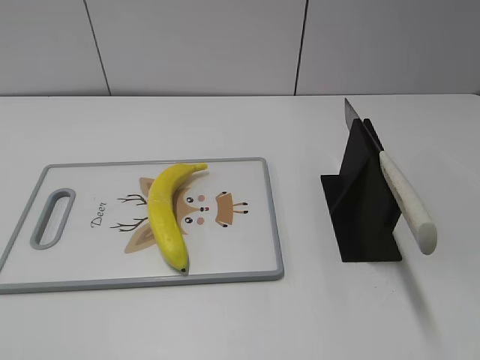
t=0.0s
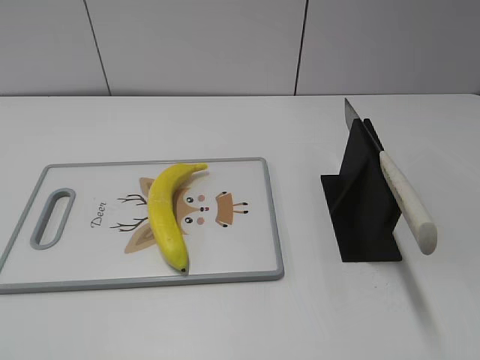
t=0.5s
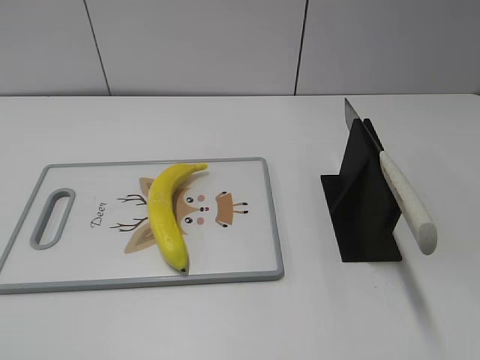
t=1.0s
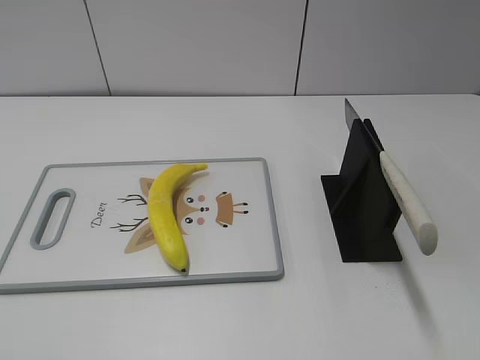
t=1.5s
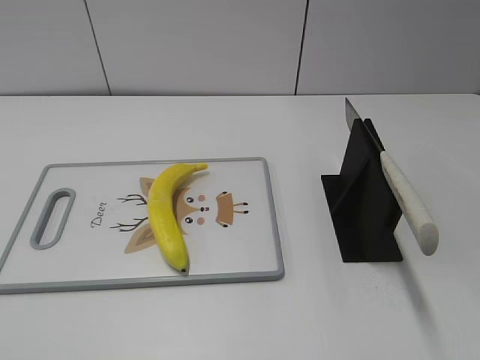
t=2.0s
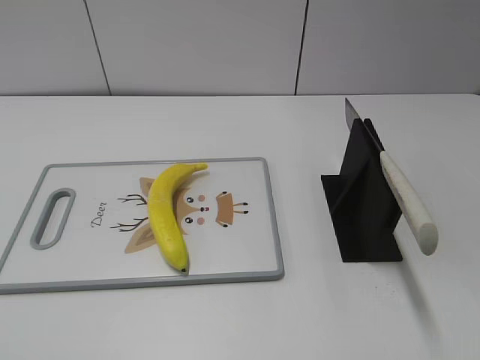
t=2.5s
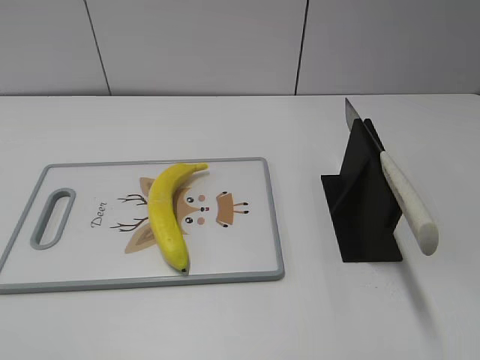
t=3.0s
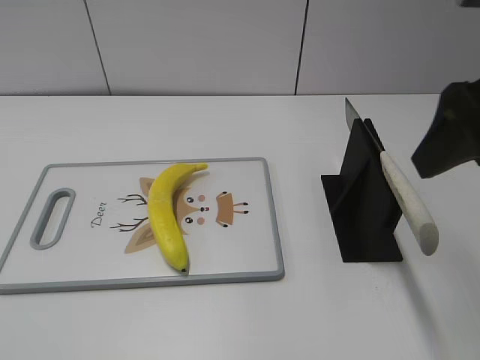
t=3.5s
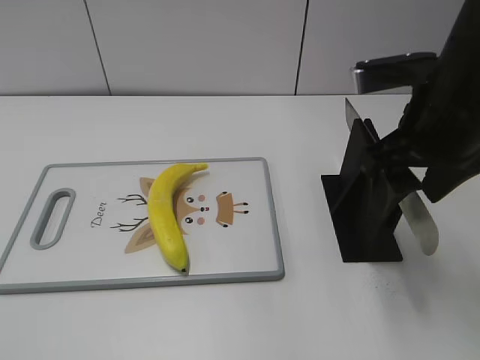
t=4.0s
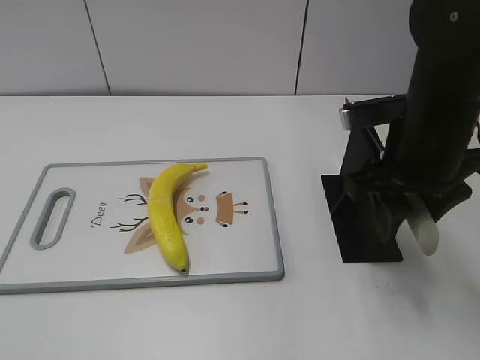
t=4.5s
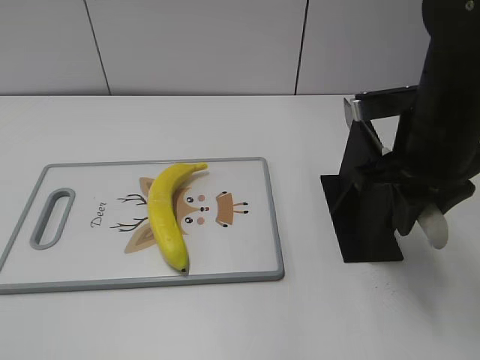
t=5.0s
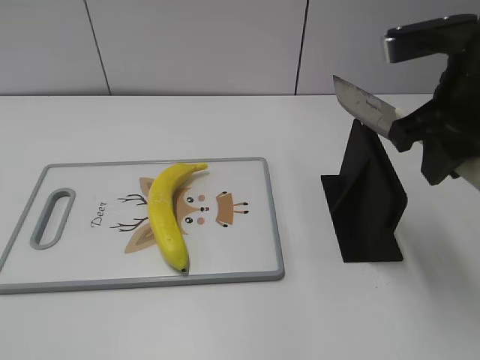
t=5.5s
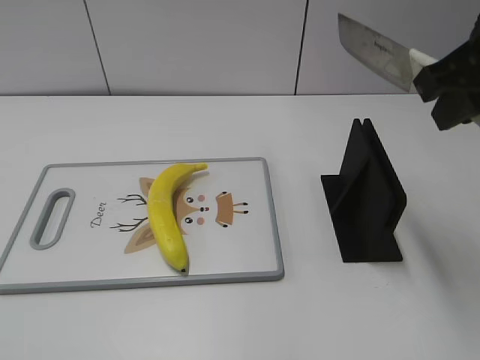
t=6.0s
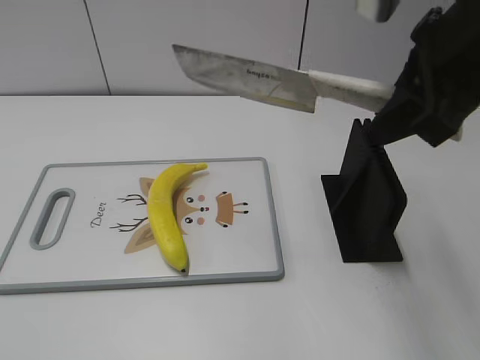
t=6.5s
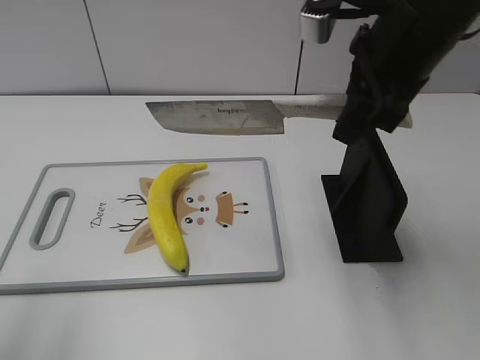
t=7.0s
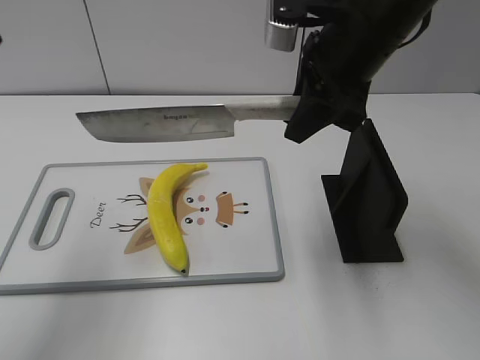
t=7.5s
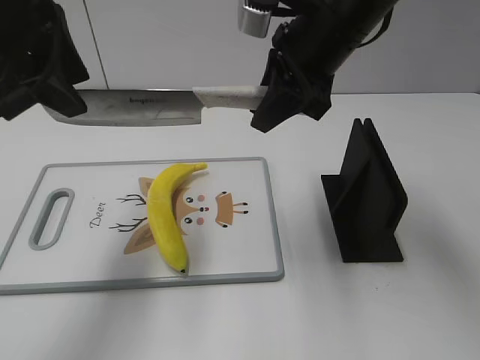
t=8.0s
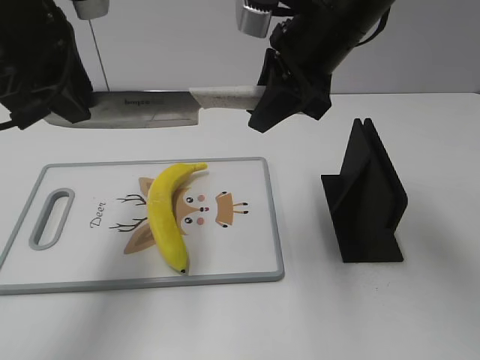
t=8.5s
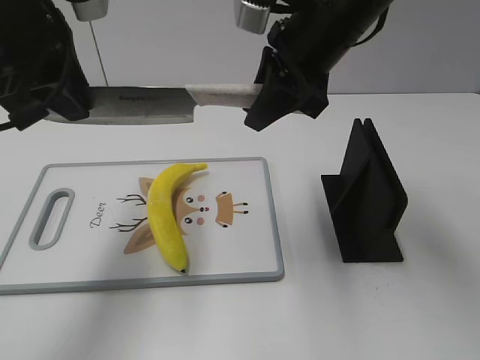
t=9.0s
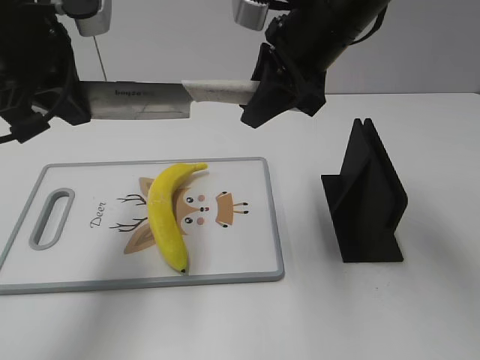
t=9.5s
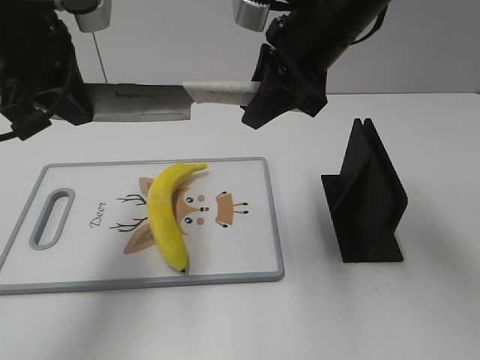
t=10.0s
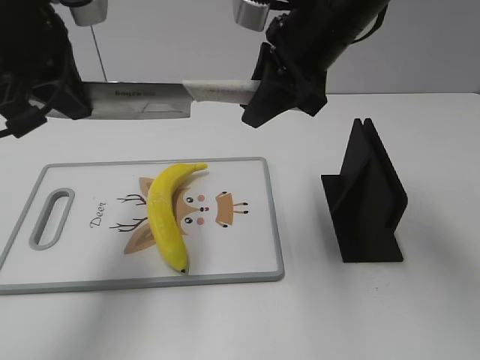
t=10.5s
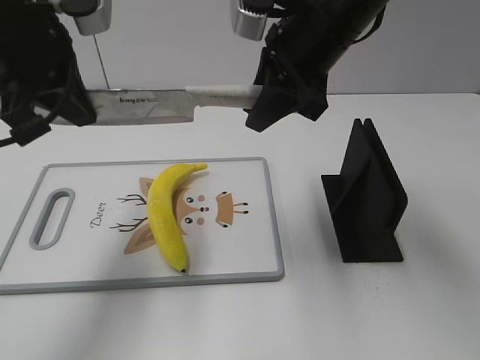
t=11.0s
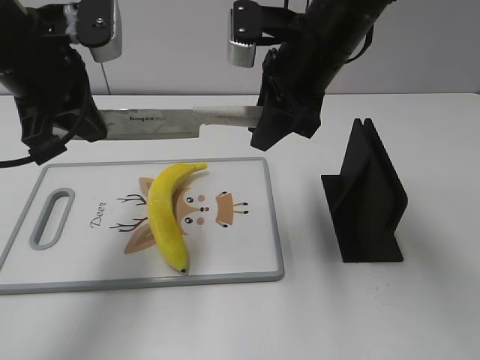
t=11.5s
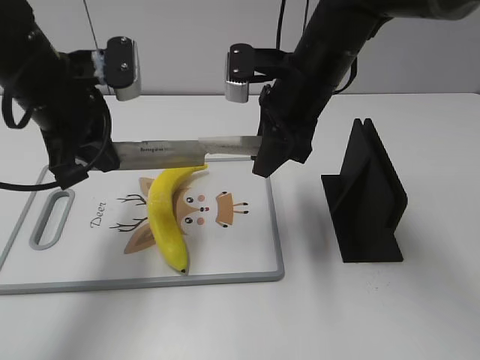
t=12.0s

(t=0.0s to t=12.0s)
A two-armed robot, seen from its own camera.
Task of the whole recording: cut plastic banana.
Step, t=0.0s - t=5.5s: Grab the knife handle with your right hand.
t=2.0s - t=4.0s: The right gripper heads forward and to the left, covering approximately 25 cm.
t=4.0s - t=6.0s: The right gripper goes approximately 10 cm upward, and closes.
t=6.0s - t=8.0s: The right gripper goes roughly 15 cm to the left, forward and downward; the left gripper heads forward and to the right, covering some 35 cm.
t=8.0s - t=10.0s: The left gripper closes up.
t=10.0s - t=12.0s: The two grippers go roughly 10 cm downward.

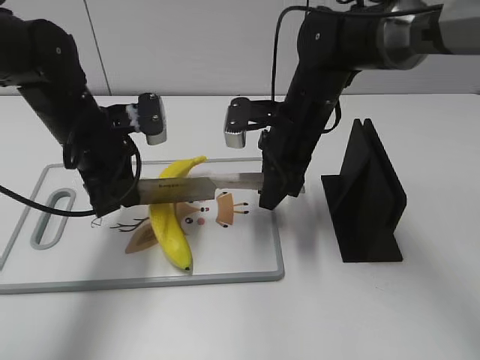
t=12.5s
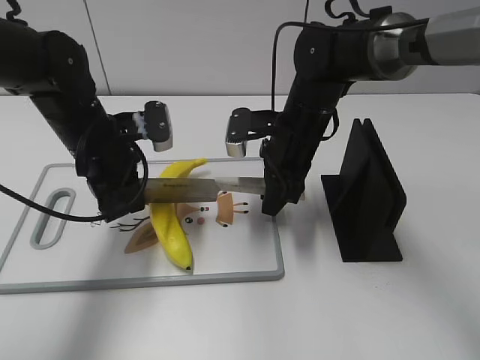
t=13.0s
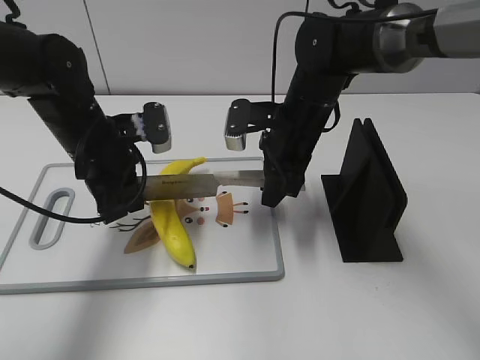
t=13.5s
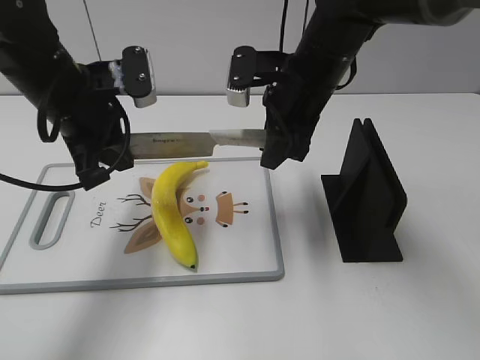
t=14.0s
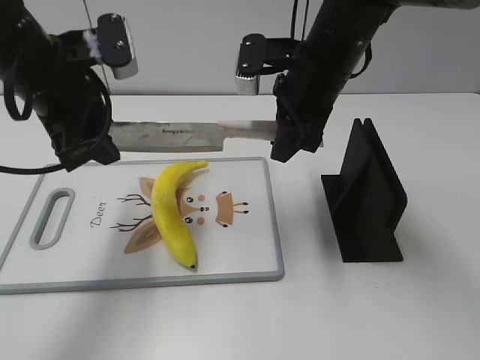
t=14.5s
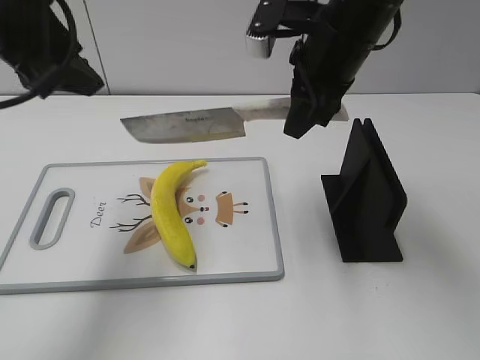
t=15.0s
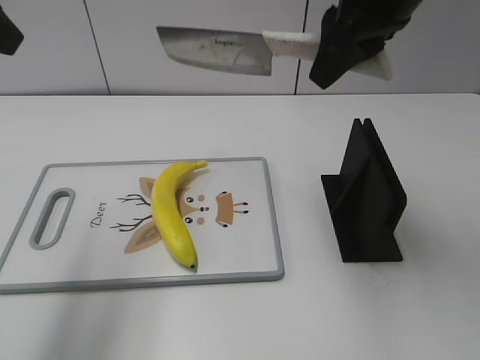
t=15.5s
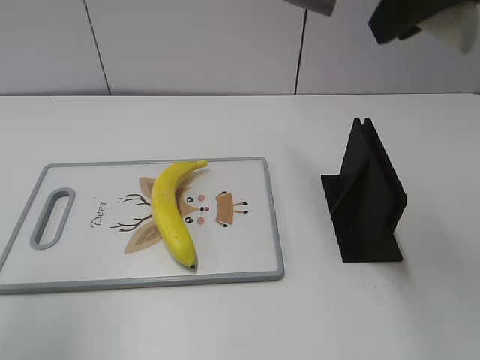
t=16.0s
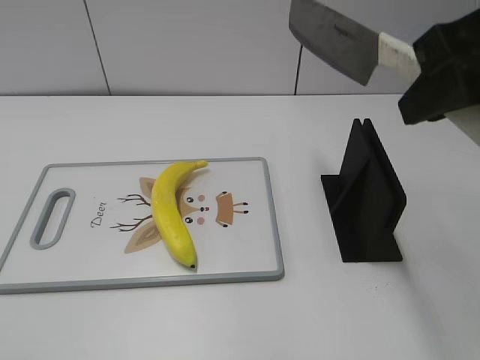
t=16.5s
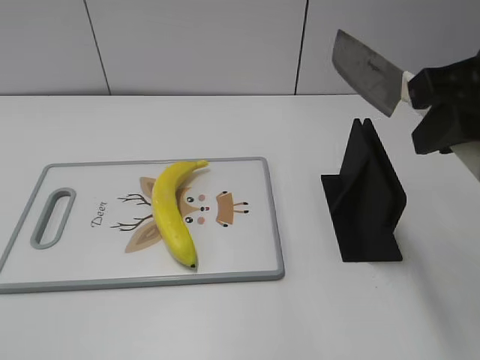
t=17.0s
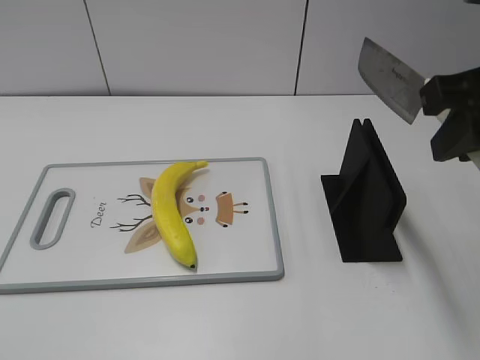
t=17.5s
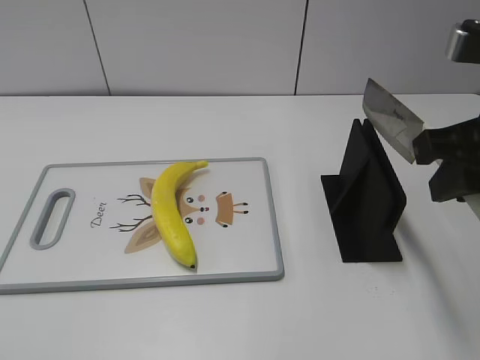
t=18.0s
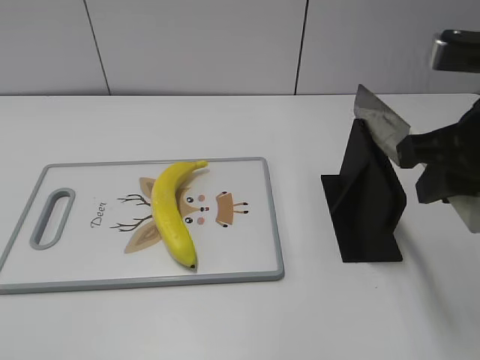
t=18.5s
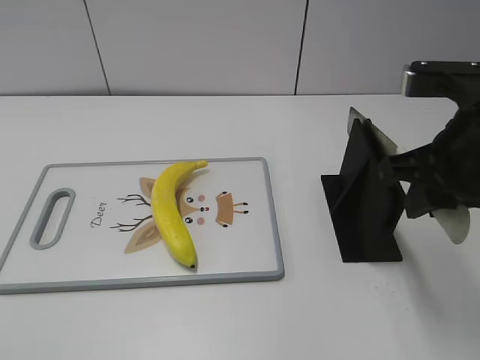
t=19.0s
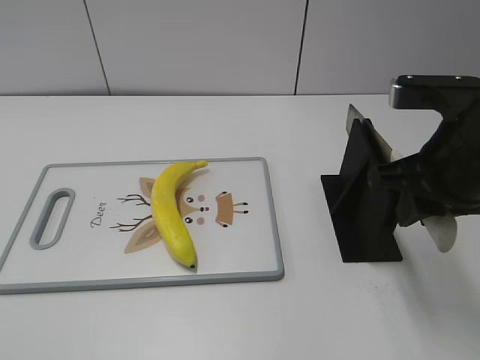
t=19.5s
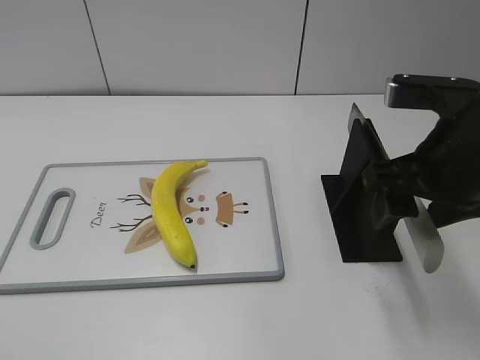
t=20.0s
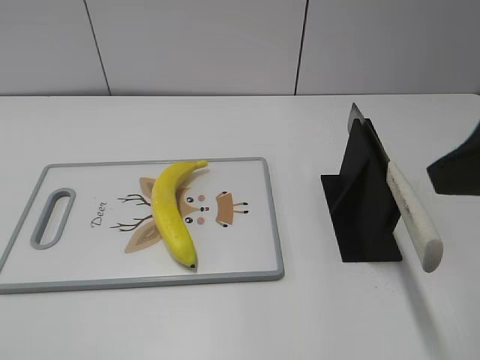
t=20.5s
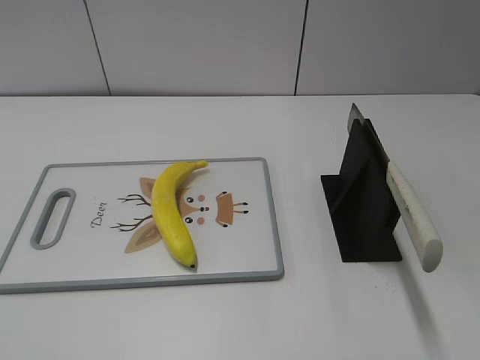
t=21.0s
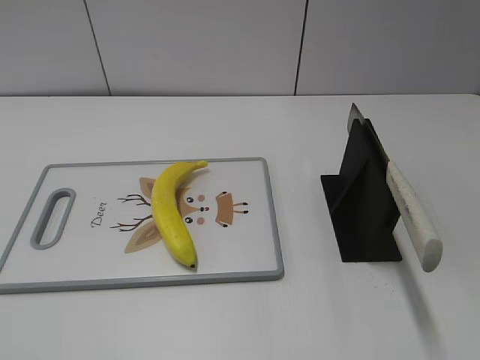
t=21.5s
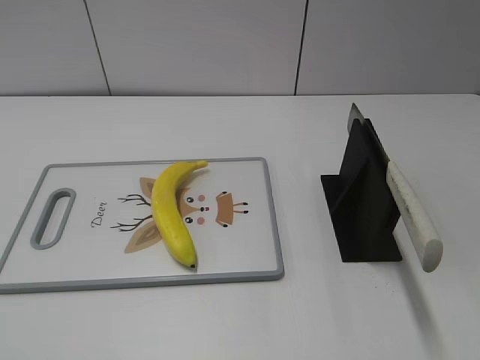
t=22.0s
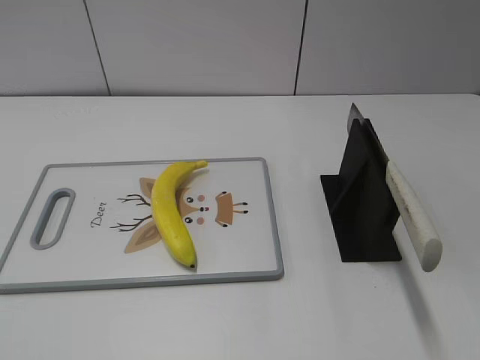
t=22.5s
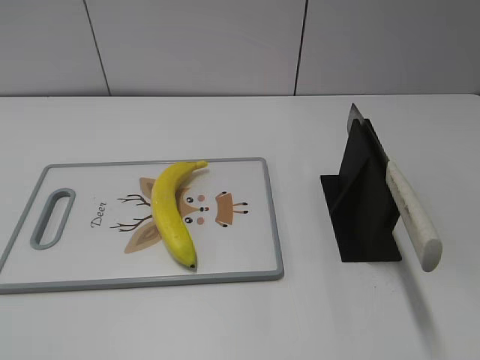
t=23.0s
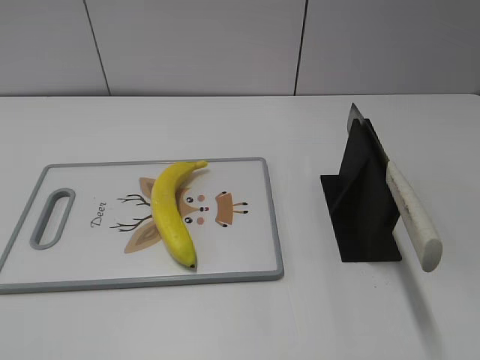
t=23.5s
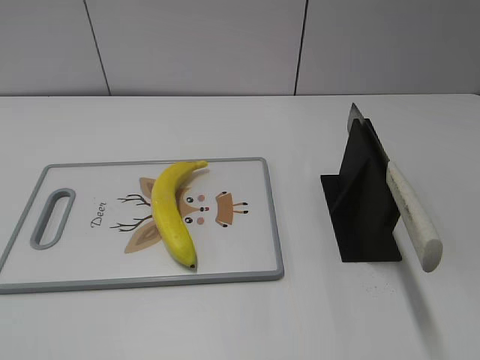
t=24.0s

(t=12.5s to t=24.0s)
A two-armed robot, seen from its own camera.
Task of the whole recording: cut plastic banana.
Step, t=12.5s - t=16.5s: Cut the banana with your right hand.
Step, t=17.0s - t=18.0s: Lift the knife with your right hand.
Step, t=18.5s - t=24.0s: Place the knife on the storage rack with your right hand.
t=12.5s - t=14.5s: The two grippers go approximately 10 cm upward. The left gripper opens its fingers.
t=14.5s - t=16.5s: The left gripper heads backward, to the left and upward, covering roughly 30 cm; the right gripper goes roughly 20 cm backward, upward and to the right.
t=16.5s - t=18.5s: The right gripper moves downward, about 10 cm. The left gripper shifts approximately 10 cm downward and backward.
t=18.5s - t=20.0s: The right gripper opens up.
t=20.0s - t=22.0s: The right gripper moves backward and to the right, roughly 25 cm.
